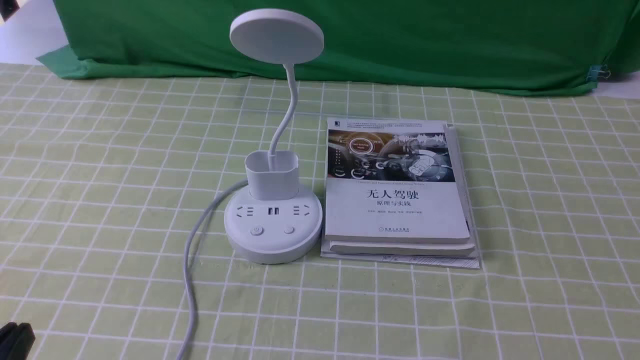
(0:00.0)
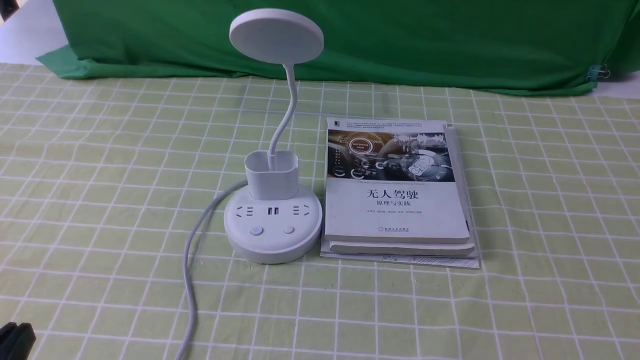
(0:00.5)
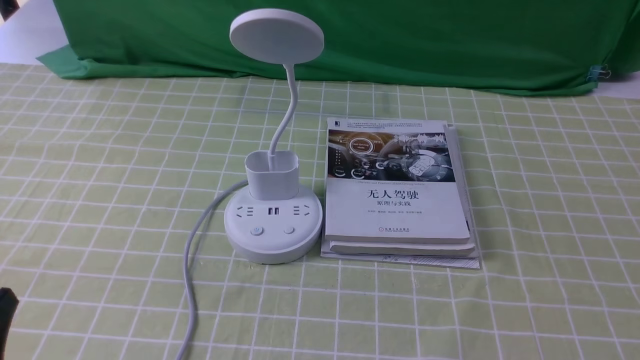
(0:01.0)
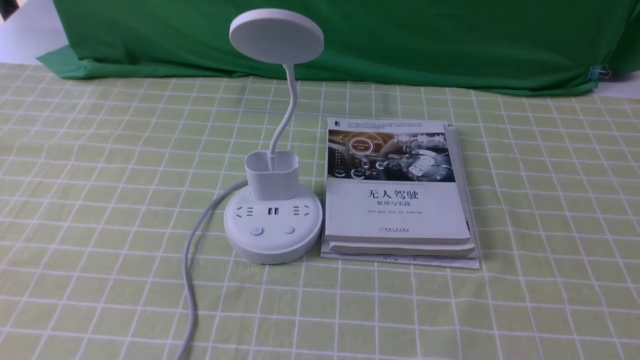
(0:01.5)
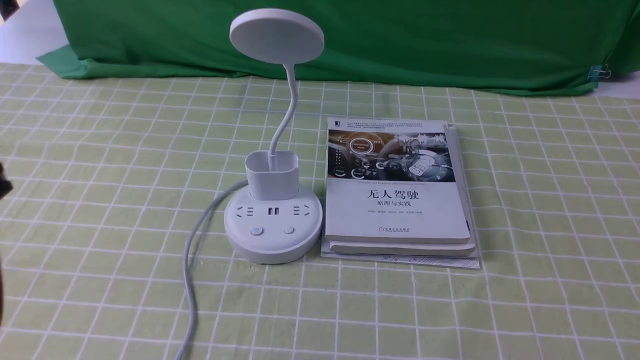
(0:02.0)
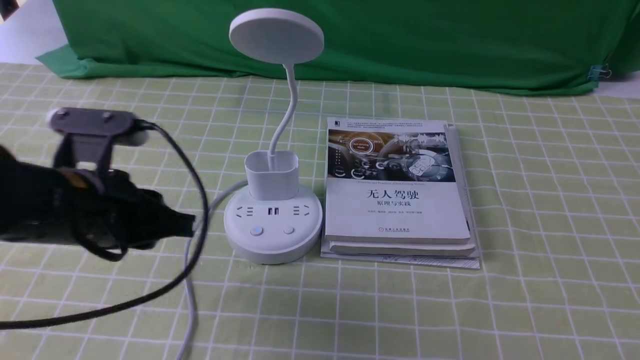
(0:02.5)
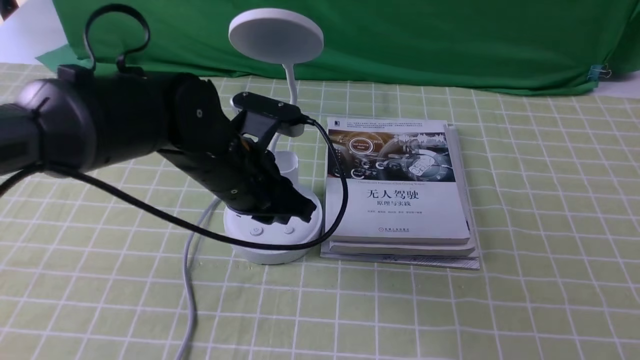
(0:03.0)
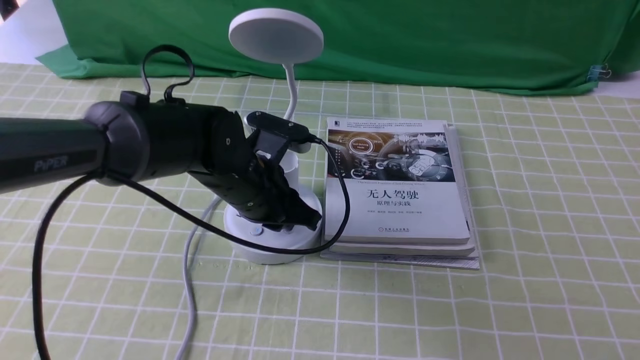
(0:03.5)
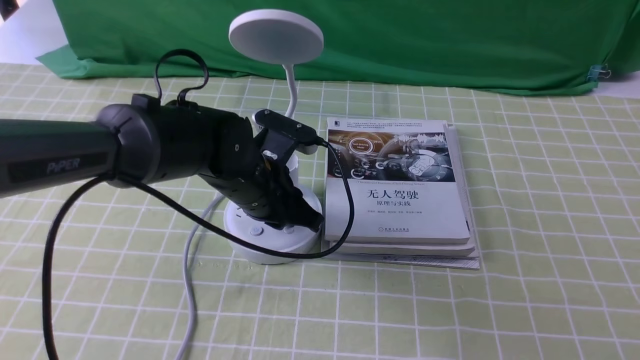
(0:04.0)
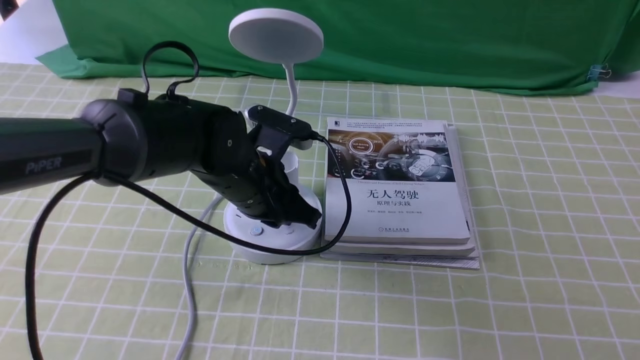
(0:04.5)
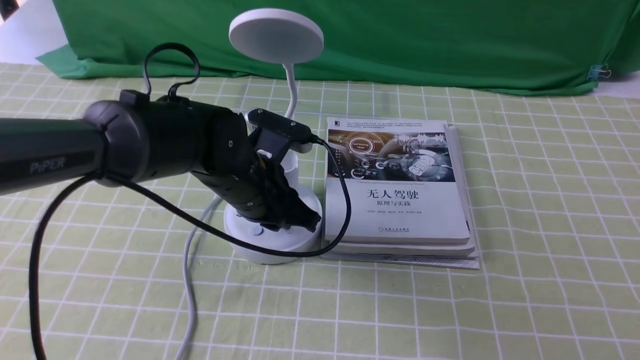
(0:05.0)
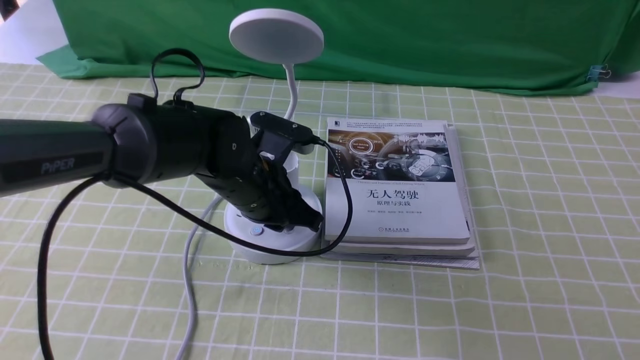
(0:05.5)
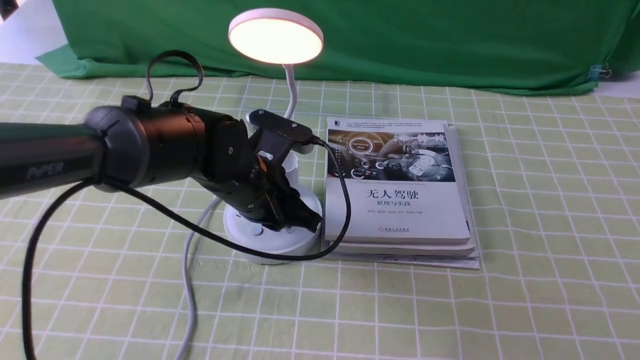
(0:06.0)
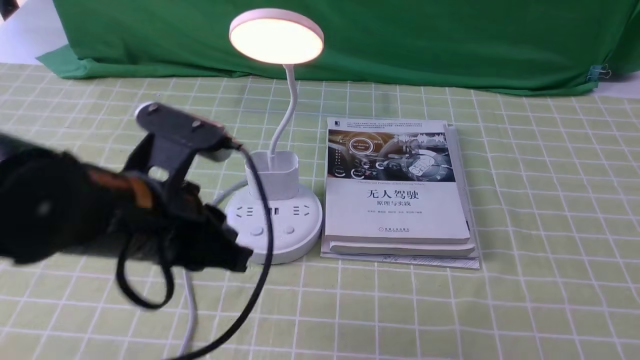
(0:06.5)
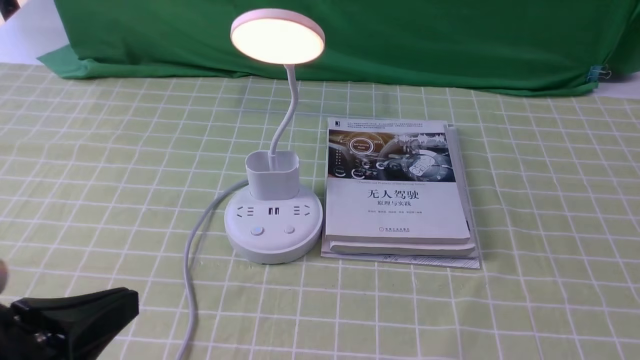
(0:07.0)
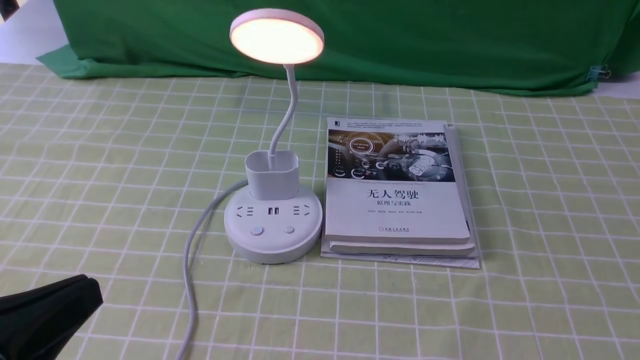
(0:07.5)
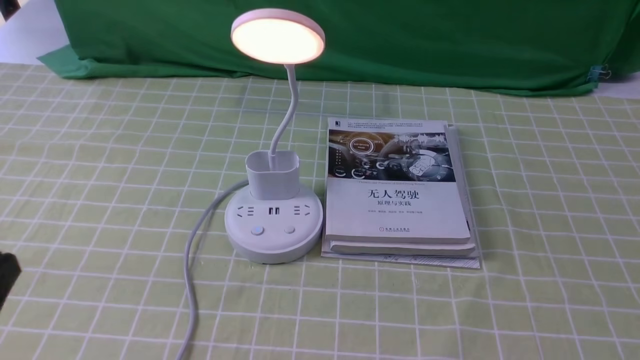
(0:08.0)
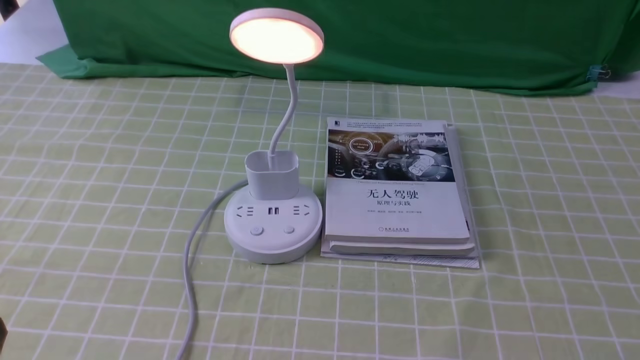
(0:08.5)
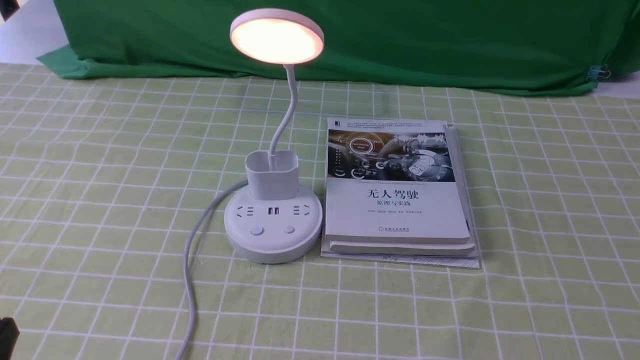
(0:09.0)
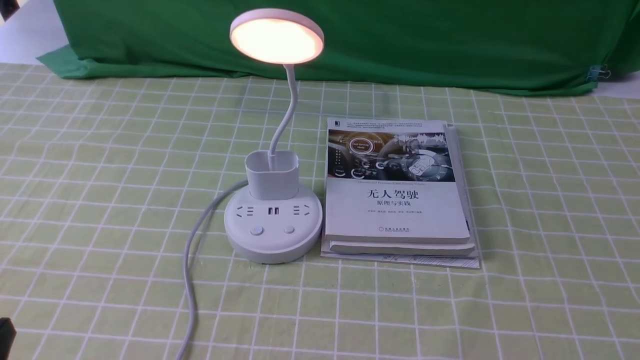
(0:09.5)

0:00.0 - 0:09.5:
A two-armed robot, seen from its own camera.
Step, 0:00.0 - 0:06.0: use the left arm to press the button switch on the lamp holder.
0:00.0 - 0:02.0: The left gripper goes approximately 20 cm upward and forward, and opens up.
0:02.0 - 0:04.0: The left gripper heads forward, to the right and downward, covering roughly 30 cm.
0:04.0 - 0:05.5: Both grippers stay about where they are.
0:05.5 - 0:07.5: The left gripper moves backward and to the left, roughly 30 cm, and closes up.
0:07.5 - 0:09.5: The left gripper shifts roughly 10 cm downward.
